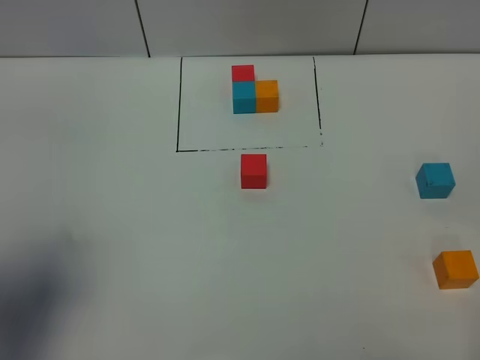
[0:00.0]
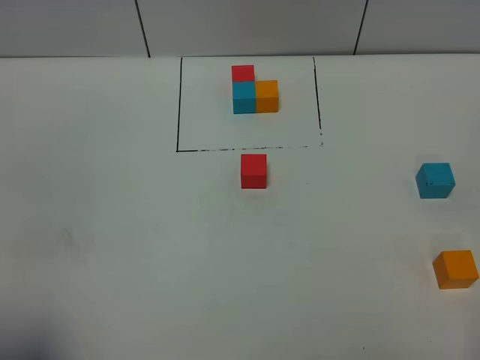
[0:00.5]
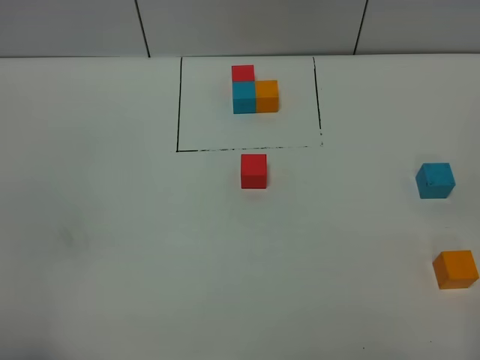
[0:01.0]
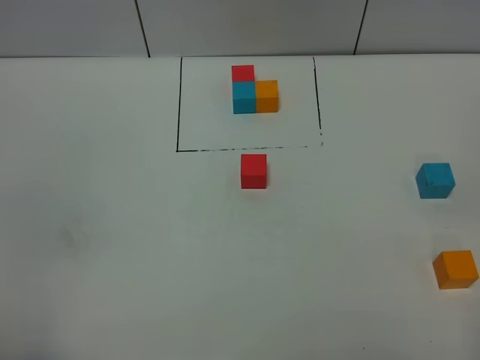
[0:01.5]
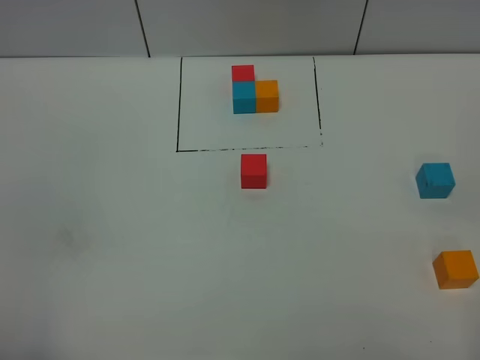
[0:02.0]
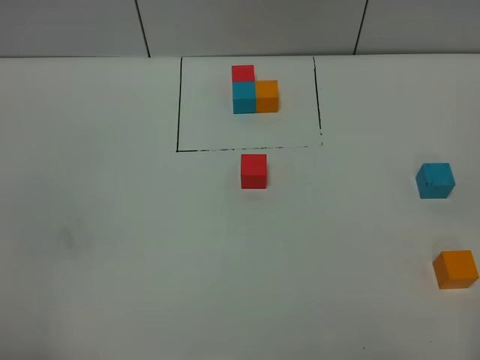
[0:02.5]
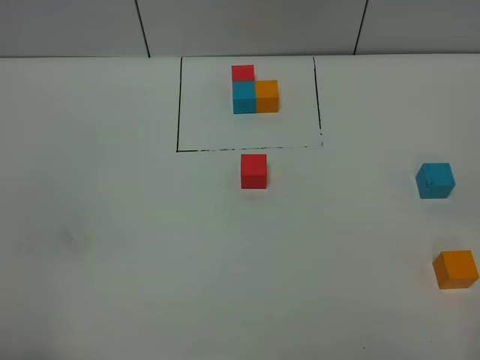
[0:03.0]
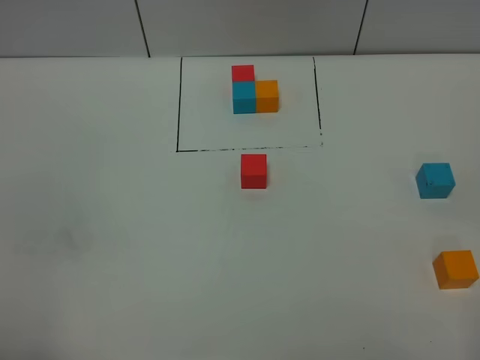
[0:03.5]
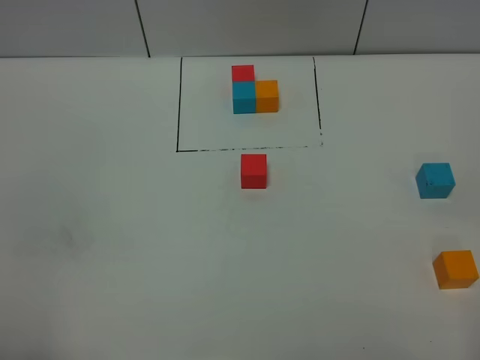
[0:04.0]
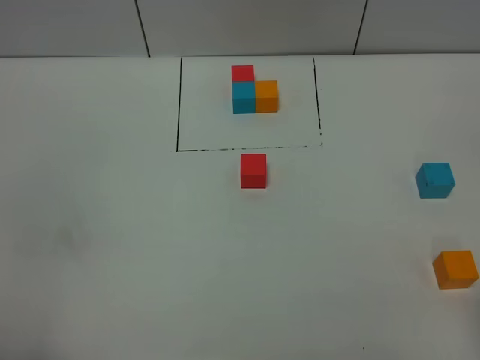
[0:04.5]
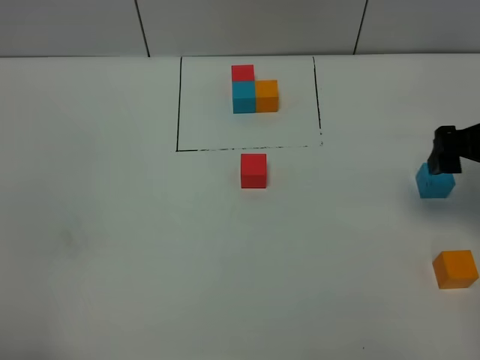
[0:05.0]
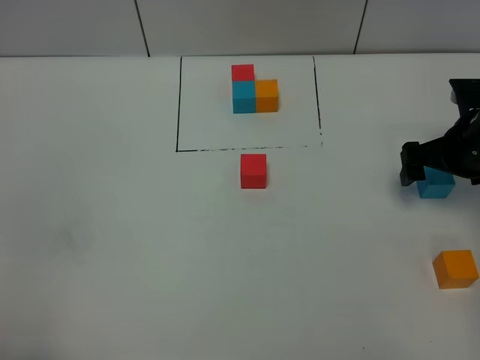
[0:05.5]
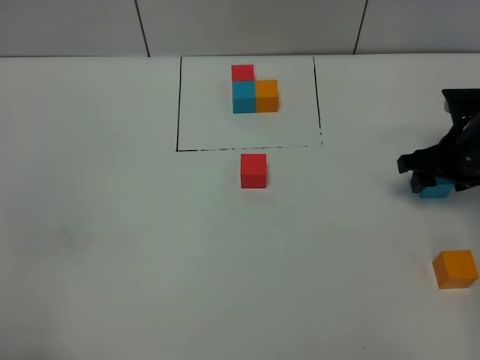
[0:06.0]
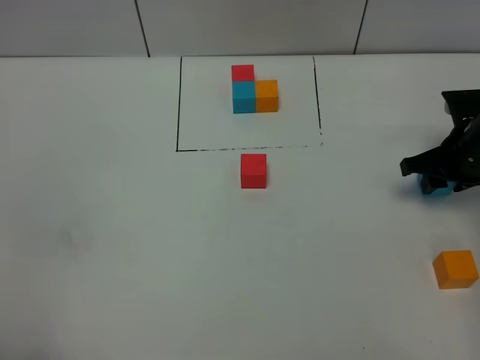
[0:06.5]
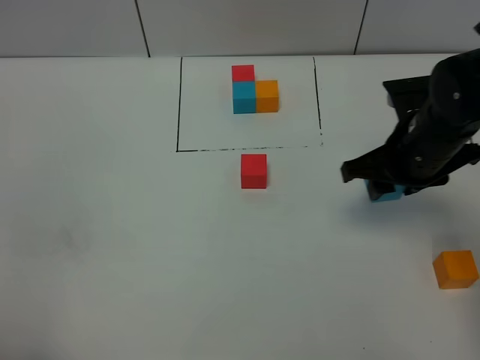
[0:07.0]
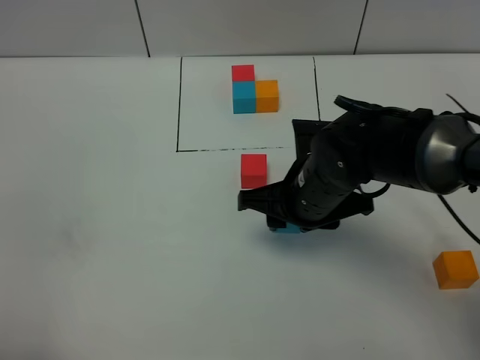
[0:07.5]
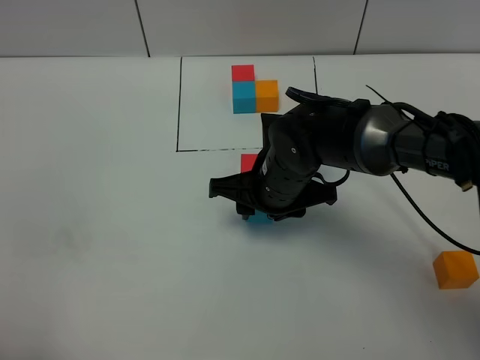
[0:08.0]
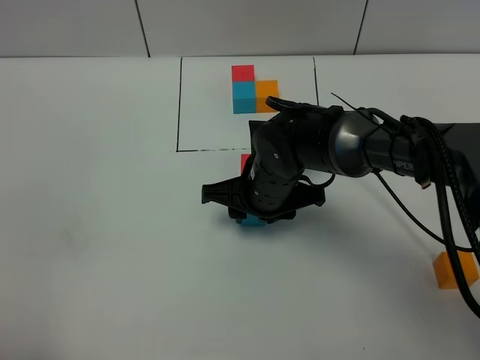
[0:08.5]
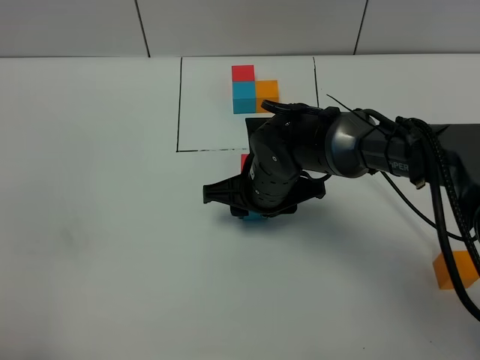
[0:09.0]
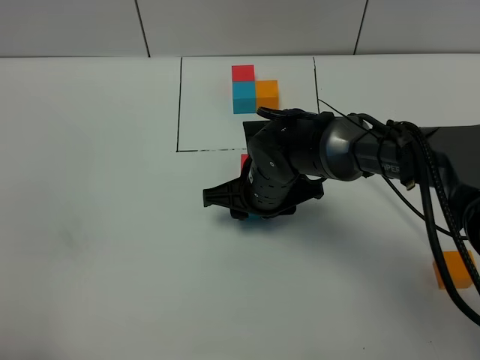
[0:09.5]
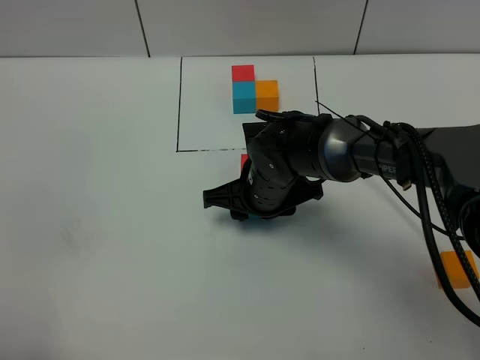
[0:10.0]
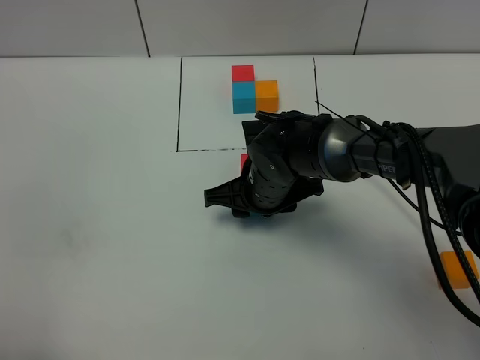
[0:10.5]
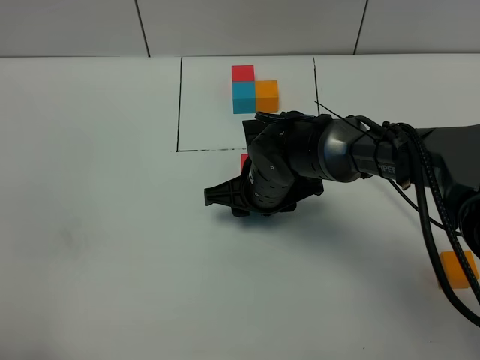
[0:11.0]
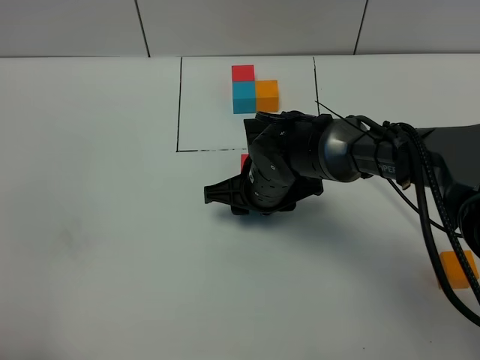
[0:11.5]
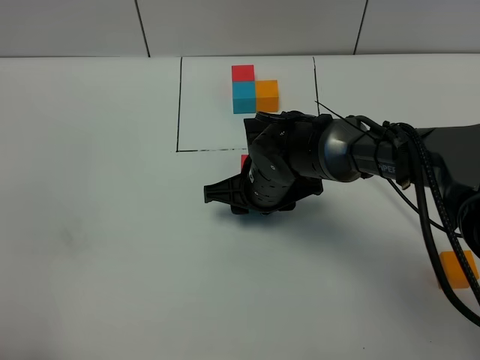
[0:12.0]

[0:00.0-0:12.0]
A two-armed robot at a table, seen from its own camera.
Task of the whole recording: According to the building block template in front, assemble the scattered blocks together.
0:00.0 to 0:02.0: The left gripper heads backward, covering roughly 10 cm.
0:02.0 to 0:04.0: Both grippers stay about where they are.
0:04.0 to 0:06.0: The right gripper shifts roughly 40 cm forward and downward, and closes.
0:06.0 to 0:08.0: The right gripper moves to the left, approximately 25 cm.
0:08.0 to 0:10.0: The grippers make only small movements.
0:10.0 to 0:12.0: Both grippers stay about where they are.

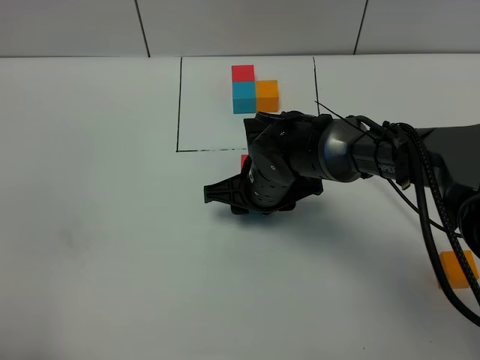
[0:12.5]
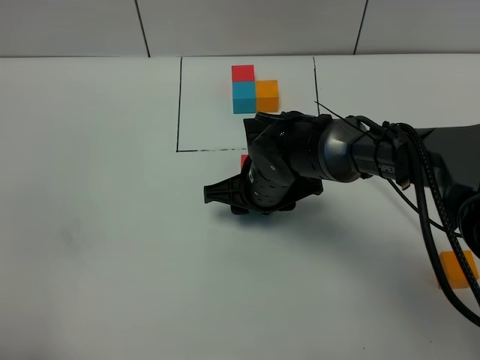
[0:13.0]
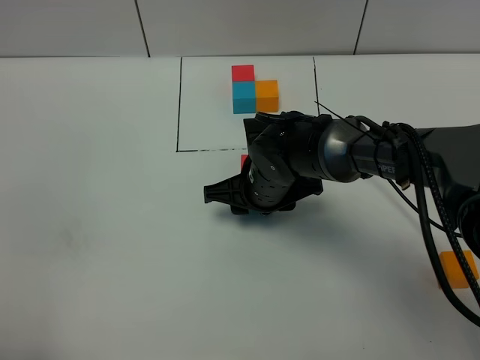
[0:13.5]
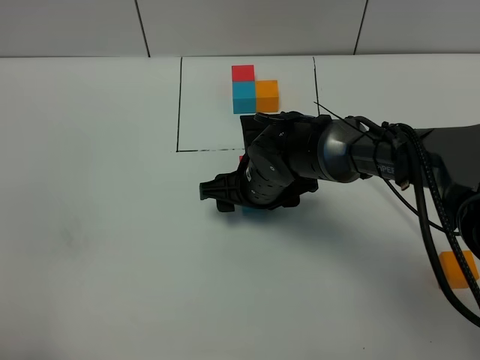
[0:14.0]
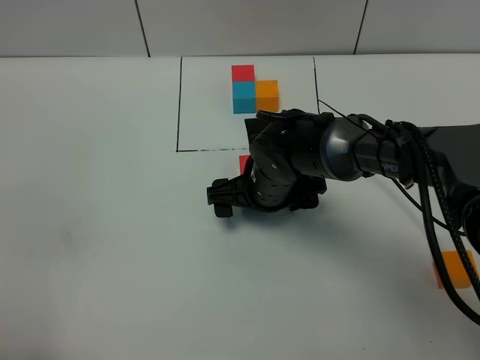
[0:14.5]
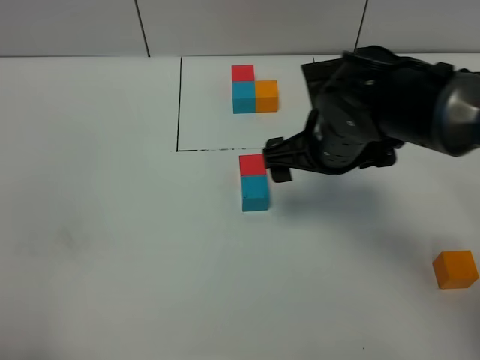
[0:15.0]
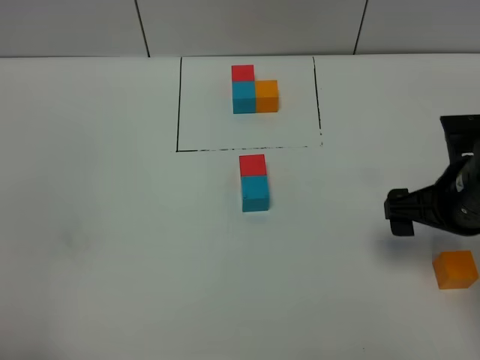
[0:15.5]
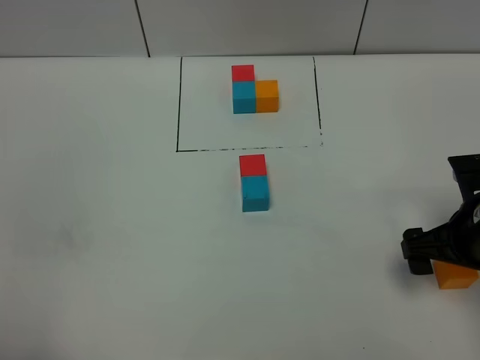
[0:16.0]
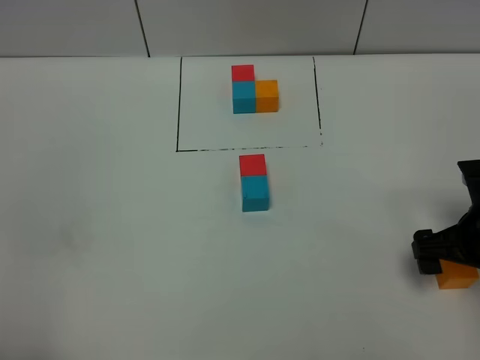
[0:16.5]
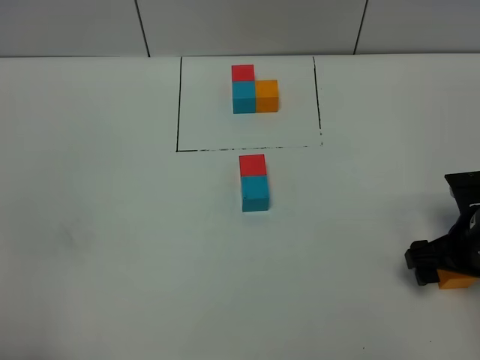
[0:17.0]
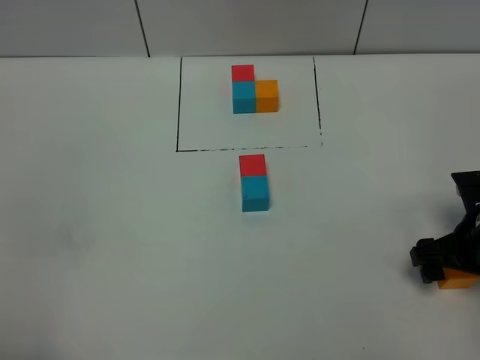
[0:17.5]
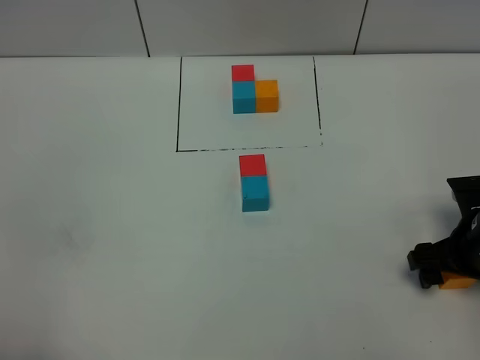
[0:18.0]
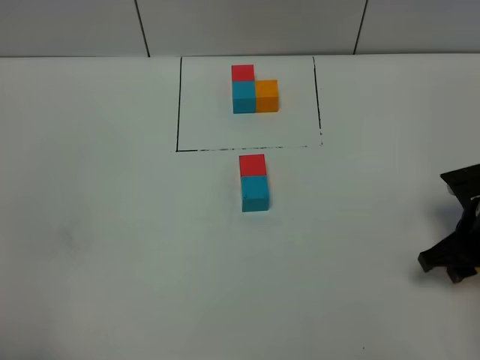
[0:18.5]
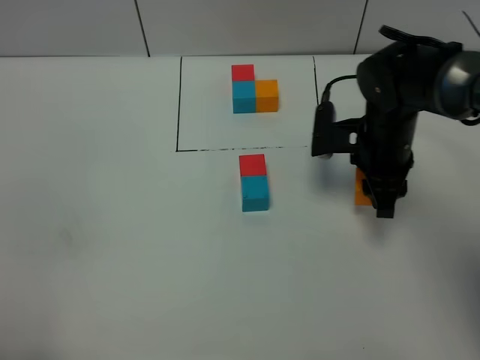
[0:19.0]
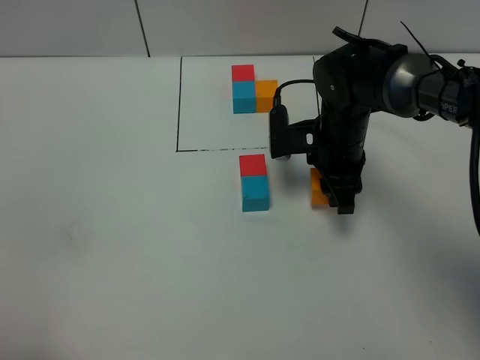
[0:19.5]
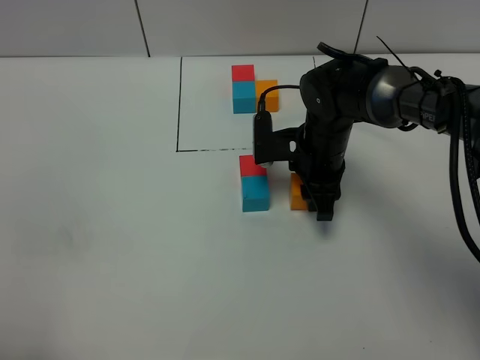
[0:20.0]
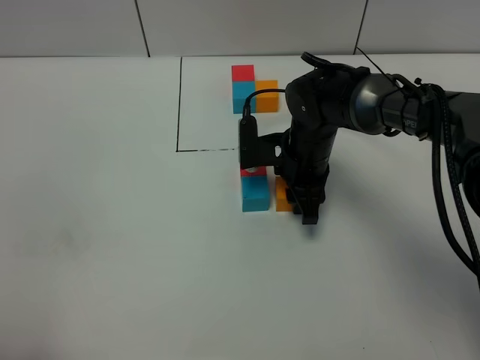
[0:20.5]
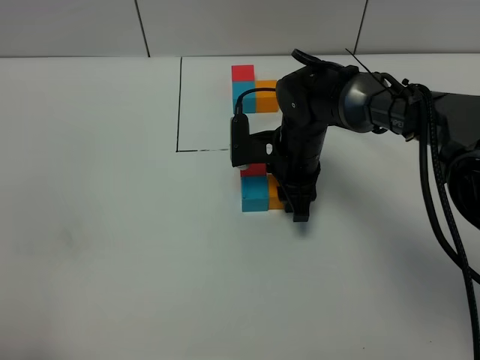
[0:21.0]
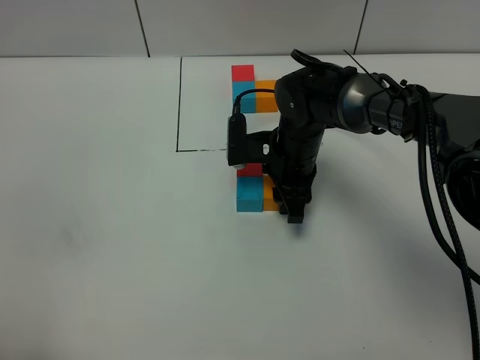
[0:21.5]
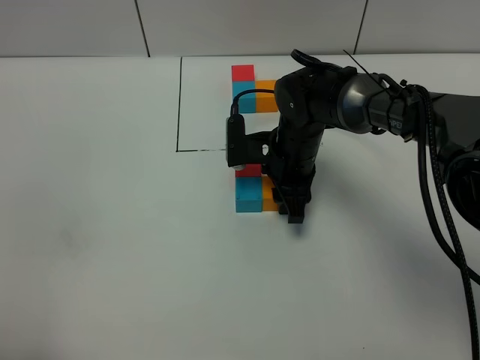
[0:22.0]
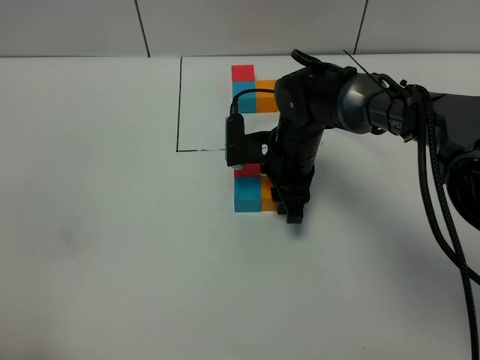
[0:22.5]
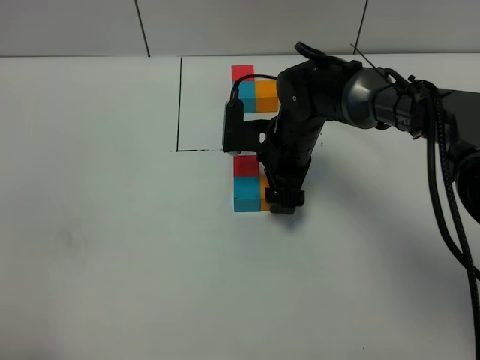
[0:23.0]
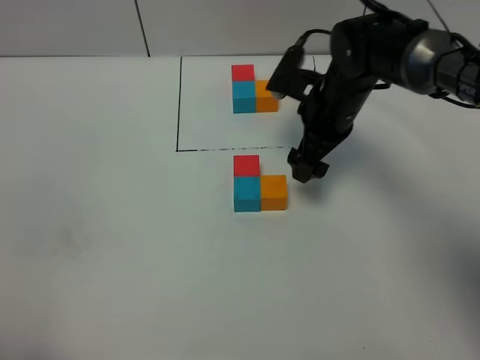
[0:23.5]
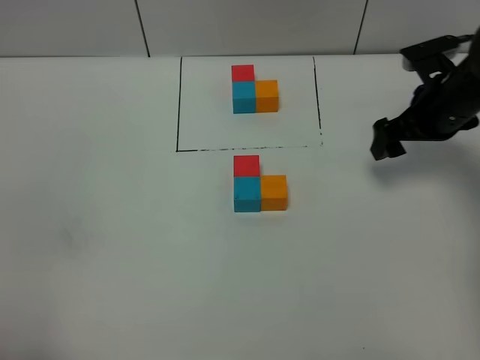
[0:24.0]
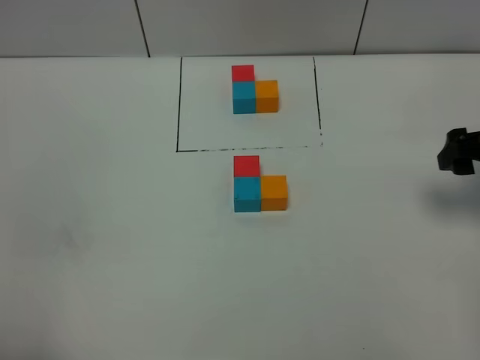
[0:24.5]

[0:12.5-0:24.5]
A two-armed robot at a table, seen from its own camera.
Task of the whole recording: According to the building block template in front, assemble the scattered blocks together.
Step, 0:14.5 to 0:22.5: Put the orange build block on the right of the blue build block.
0:12.5 to 0:14.5: The right gripper opens up.
0:14.5 to 0:16.5: The right gripper goes approximately 25 cm to the right and backward.
0:16.5 to 0:18.5: The right gripper closes its fingers.
0:18.5 to 0:20.5: The right gripper travels to the left and forward by approximately 25 cm.
0:20.5 to 0:22.5: The grippers make only small movements.
0:22.5 to 0:24.5: The right gripper is displaced to the right and upward by roughly 30 cm, and opens its fingers.

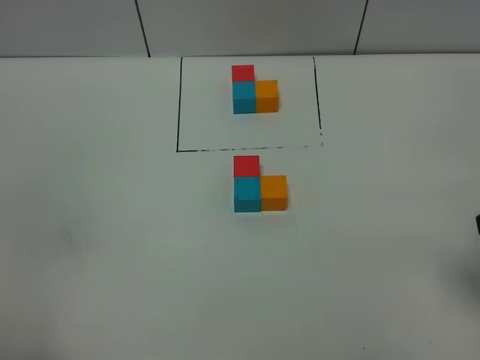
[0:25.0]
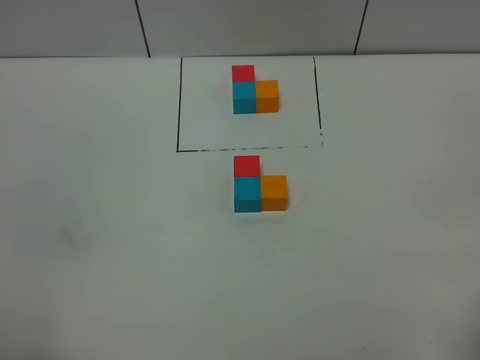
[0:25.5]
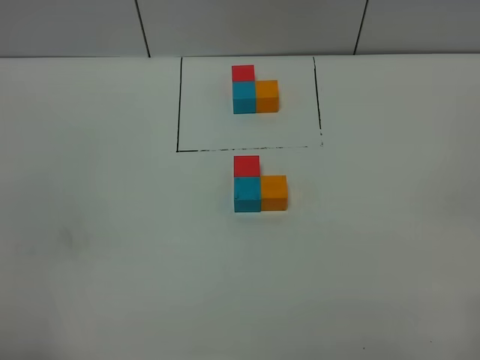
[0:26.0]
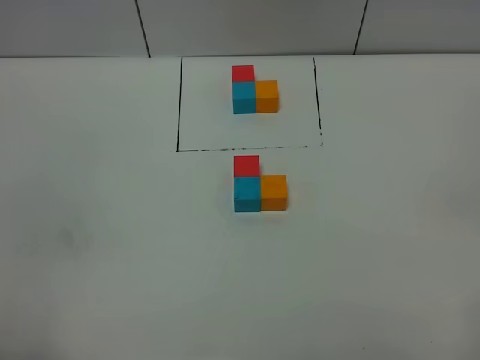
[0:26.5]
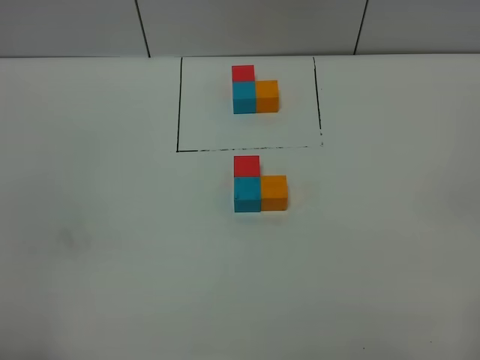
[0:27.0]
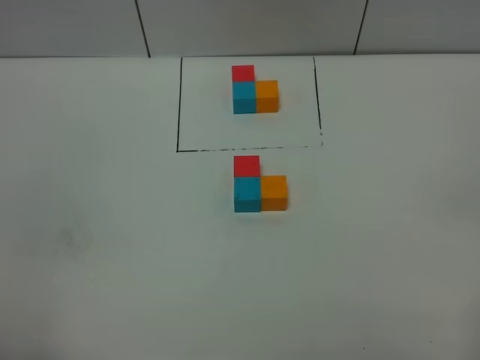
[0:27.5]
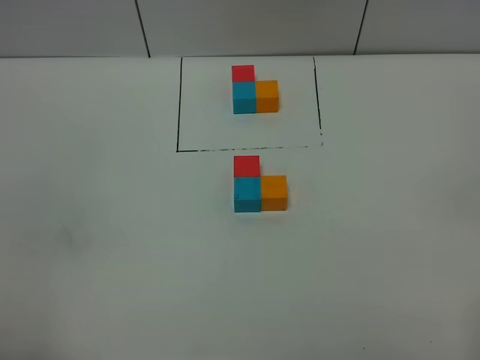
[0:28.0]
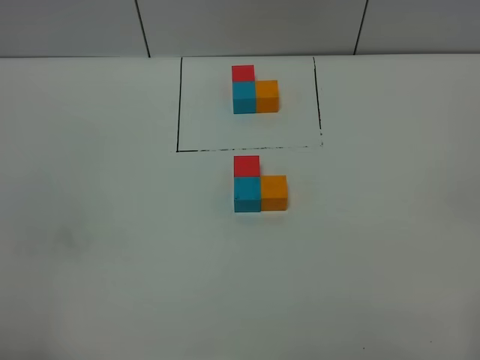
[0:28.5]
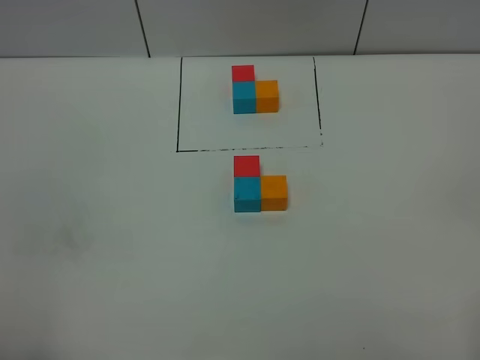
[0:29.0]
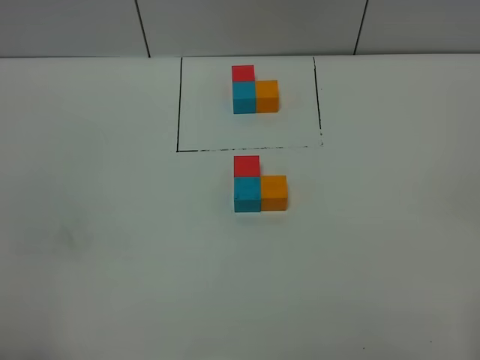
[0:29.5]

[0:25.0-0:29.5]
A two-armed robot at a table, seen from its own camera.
Task of the whole recording: According to the building block template in front, assemble the scattered blocks together.
0:27.0 to 0:29.5: Neither gripper changes place.
